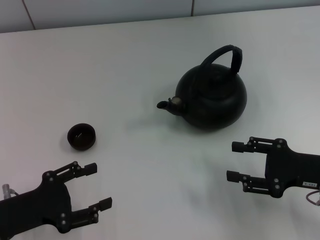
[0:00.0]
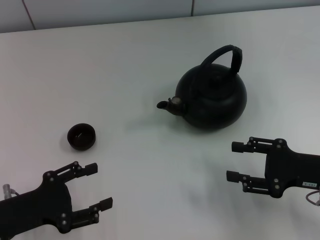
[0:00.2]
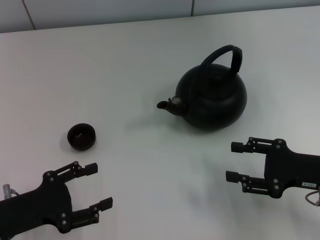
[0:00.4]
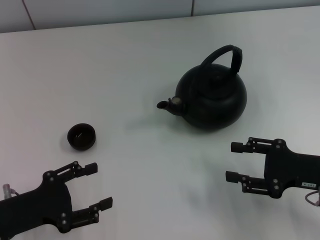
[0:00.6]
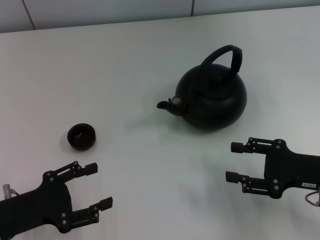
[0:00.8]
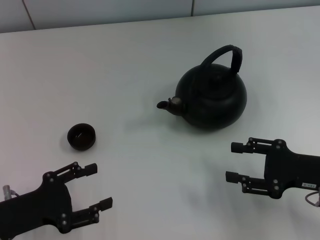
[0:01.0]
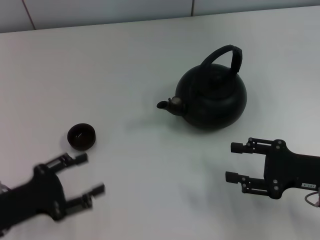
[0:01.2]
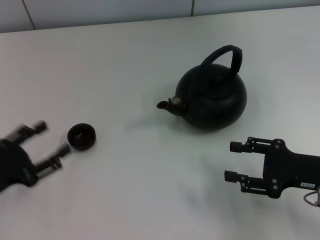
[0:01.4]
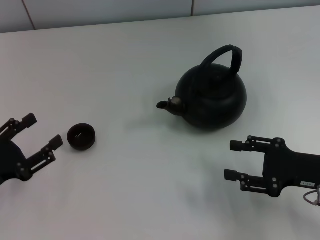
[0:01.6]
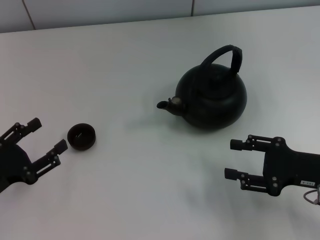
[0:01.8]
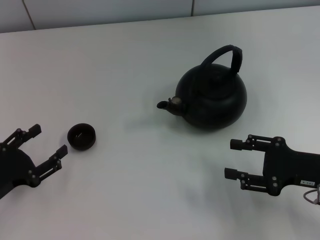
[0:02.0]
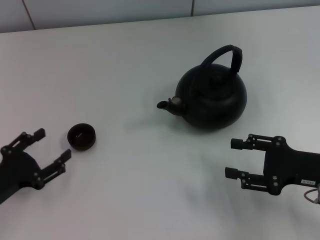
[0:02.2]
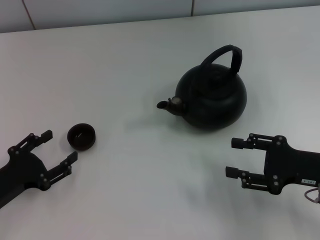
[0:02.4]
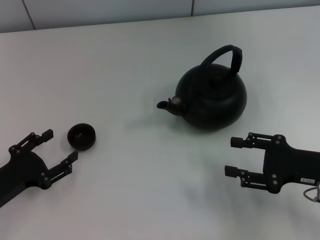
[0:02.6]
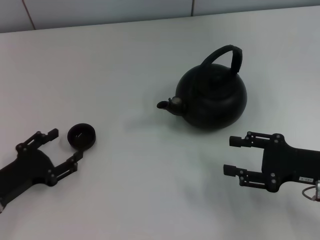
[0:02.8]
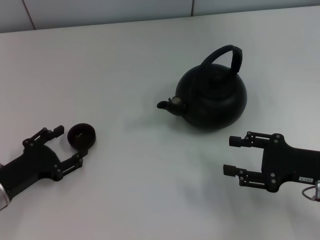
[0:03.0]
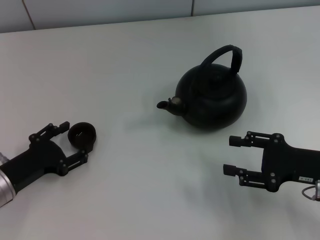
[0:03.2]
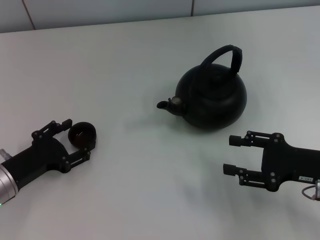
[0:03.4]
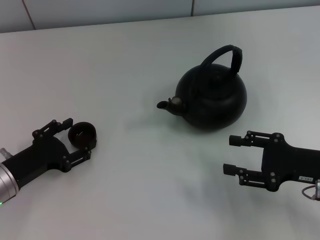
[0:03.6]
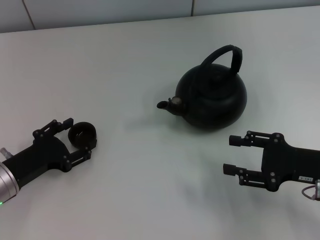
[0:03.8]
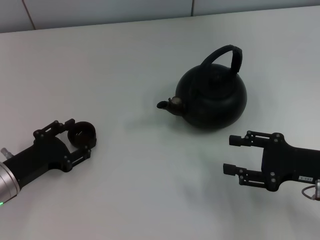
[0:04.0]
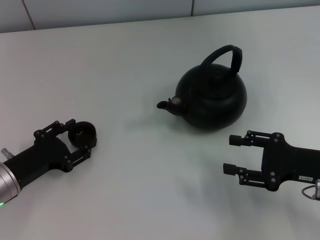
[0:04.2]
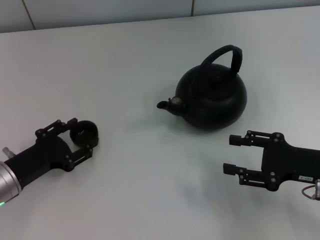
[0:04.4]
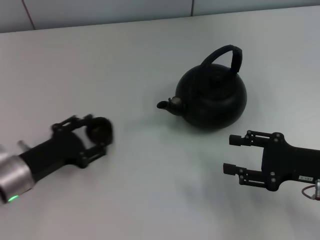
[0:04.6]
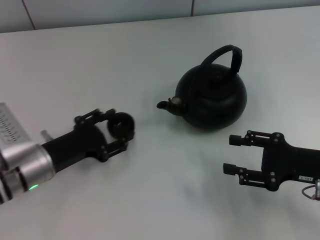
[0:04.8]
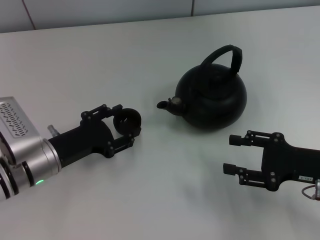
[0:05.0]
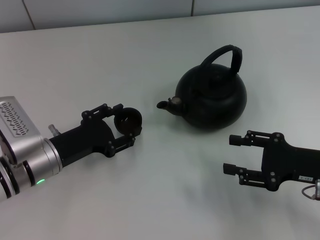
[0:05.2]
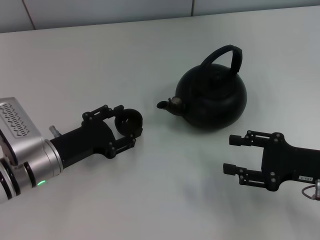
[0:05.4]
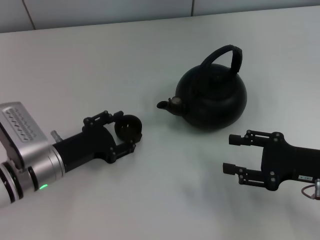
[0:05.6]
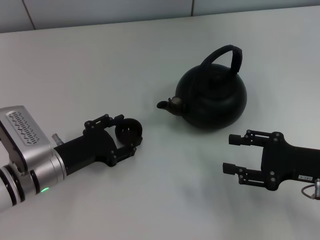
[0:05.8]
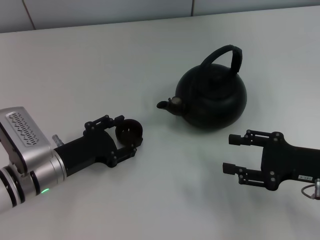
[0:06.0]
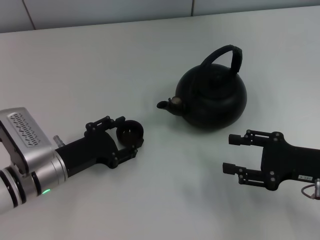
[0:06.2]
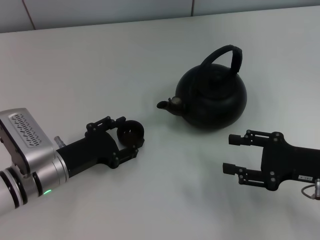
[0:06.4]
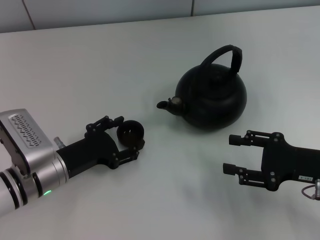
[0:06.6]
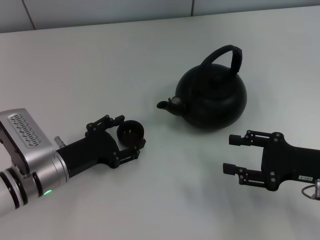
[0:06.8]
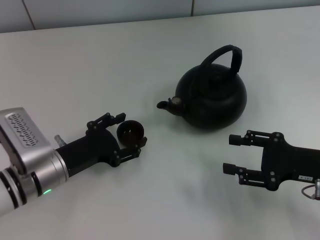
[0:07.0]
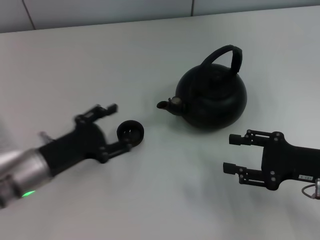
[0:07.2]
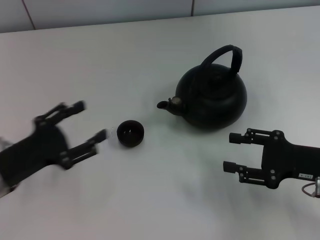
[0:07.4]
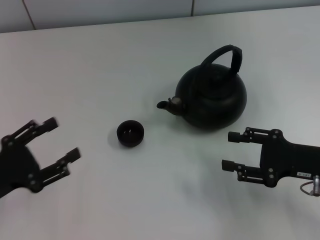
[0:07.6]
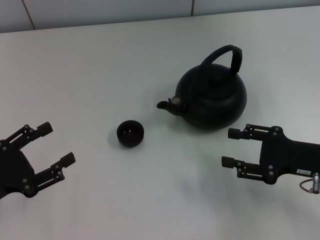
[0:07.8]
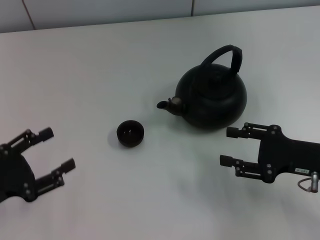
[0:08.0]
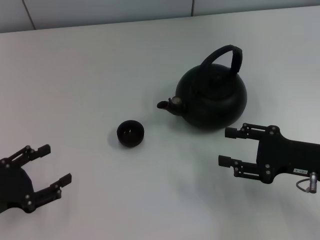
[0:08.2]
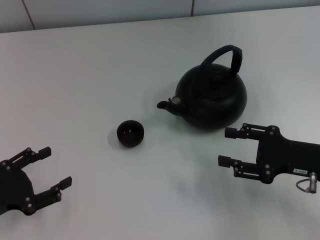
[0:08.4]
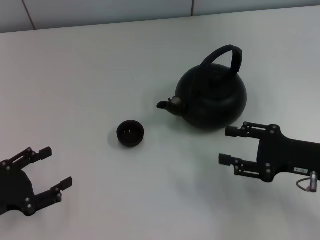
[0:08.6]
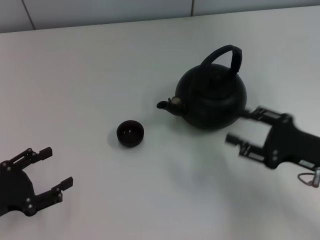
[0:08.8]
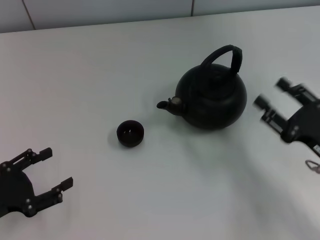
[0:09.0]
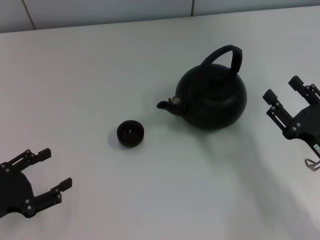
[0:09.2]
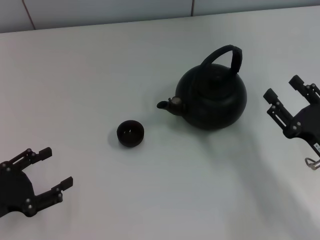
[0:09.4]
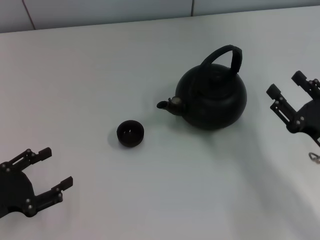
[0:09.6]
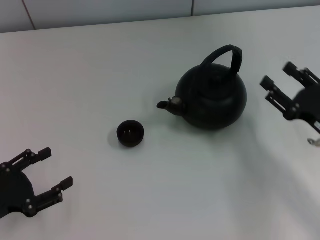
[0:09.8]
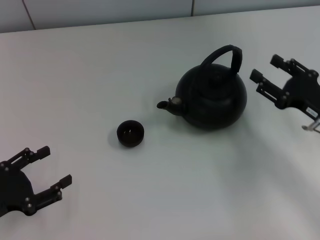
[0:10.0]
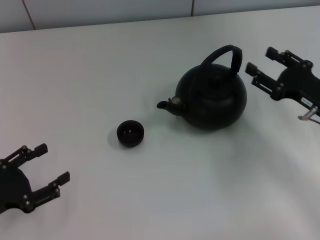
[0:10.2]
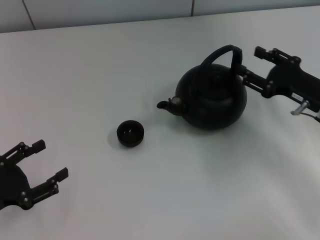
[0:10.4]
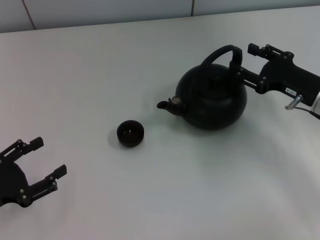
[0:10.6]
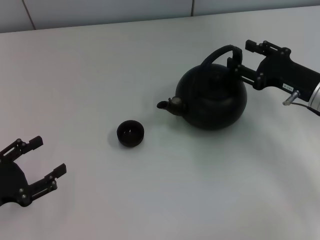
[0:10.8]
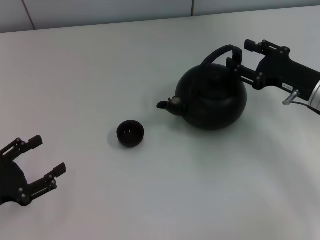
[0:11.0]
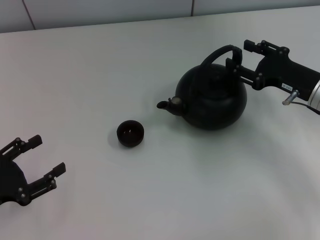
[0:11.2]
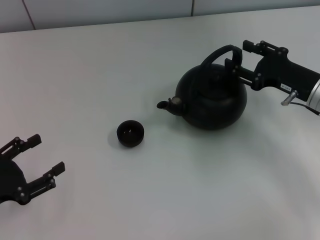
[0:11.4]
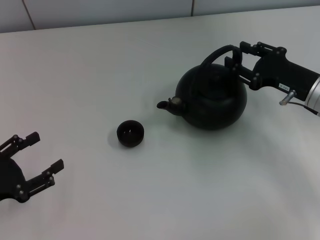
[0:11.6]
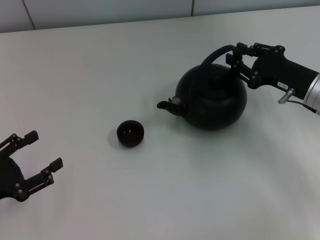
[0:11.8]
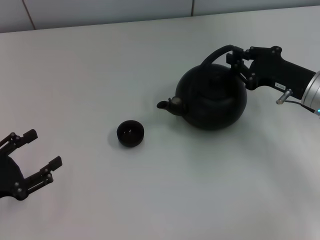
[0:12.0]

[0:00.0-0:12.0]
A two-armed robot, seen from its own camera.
Task of the whole recording: Grasp the handle of the teapot with one hand and pour tea into the teacup.
Step, 0:00.0 to 0:04.4: Pick up the teacup with the left gripper.
Step, 0:04.6 to 0:06.8: Place the teacup in the center of view with the left gripper.
0:01.6 to 0:03.0: The left gripper changes place by approximately 5 cm.
0:03.0 to 0:04.4: The grippers move only a little.
0:04.4 to 0:06.0: The left gripper goes some 5 cm to the right.
0:06.0 to 0:07.6: The left gripper is displaced to the left and backward by about 10 cm.
0:09.0 to 0:10.4: The right gripper heads forward, covering about 10 cm.
0:10.4 to 0:12.0: The right gripper closes.

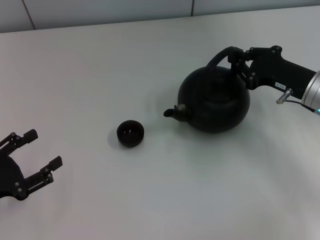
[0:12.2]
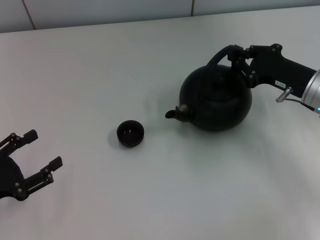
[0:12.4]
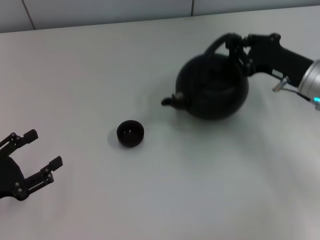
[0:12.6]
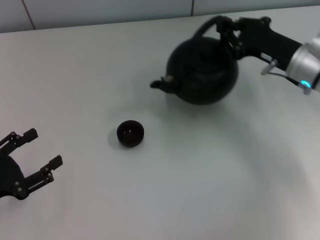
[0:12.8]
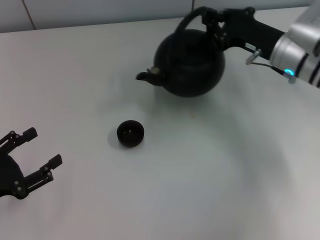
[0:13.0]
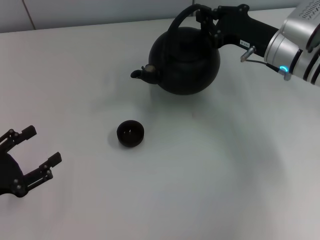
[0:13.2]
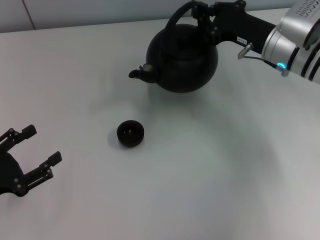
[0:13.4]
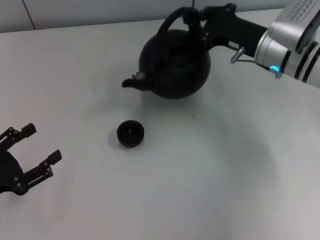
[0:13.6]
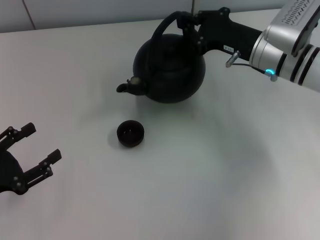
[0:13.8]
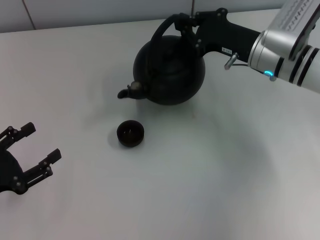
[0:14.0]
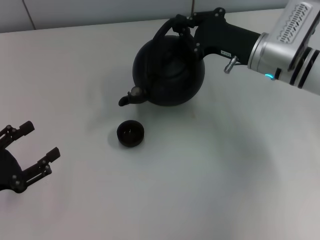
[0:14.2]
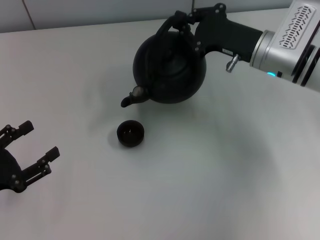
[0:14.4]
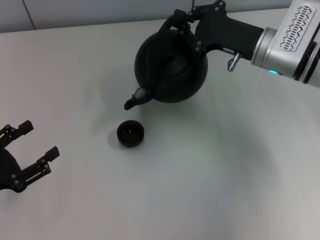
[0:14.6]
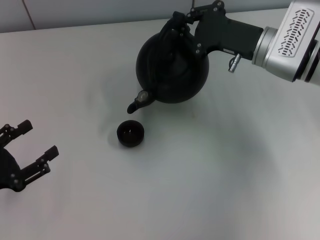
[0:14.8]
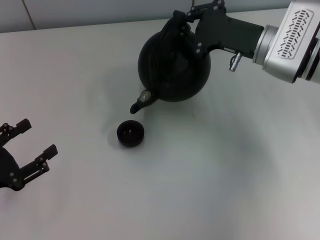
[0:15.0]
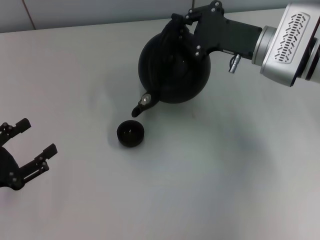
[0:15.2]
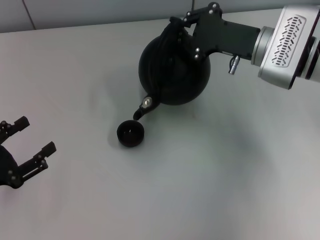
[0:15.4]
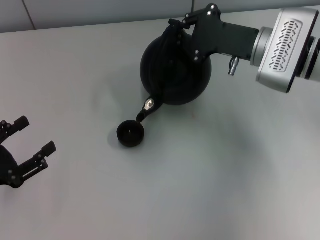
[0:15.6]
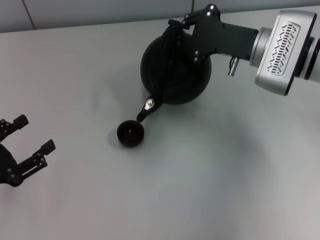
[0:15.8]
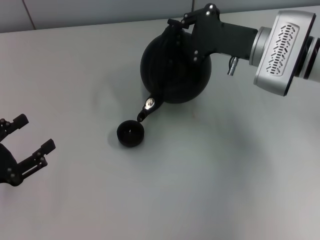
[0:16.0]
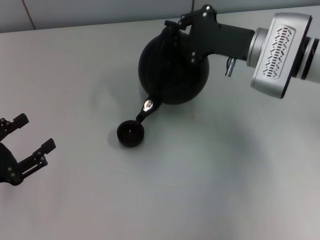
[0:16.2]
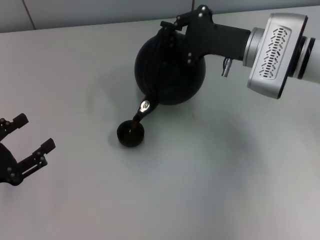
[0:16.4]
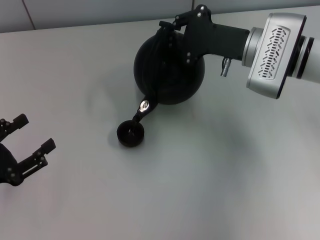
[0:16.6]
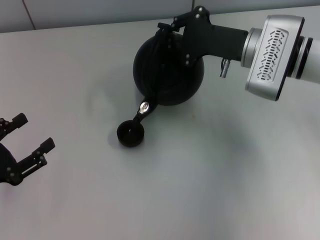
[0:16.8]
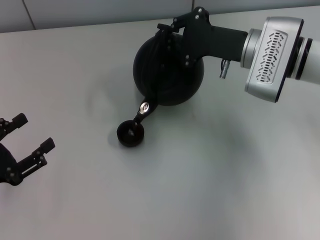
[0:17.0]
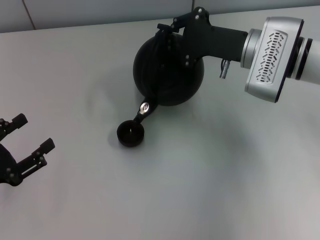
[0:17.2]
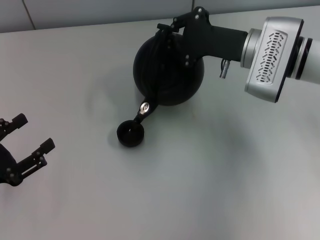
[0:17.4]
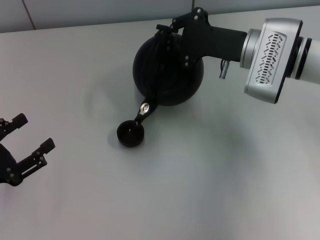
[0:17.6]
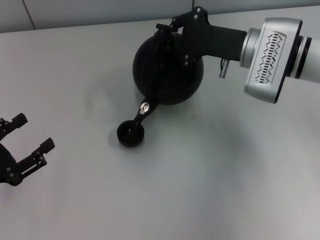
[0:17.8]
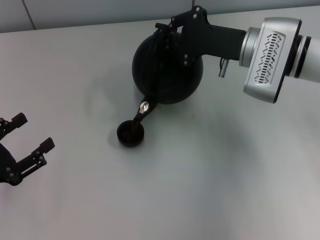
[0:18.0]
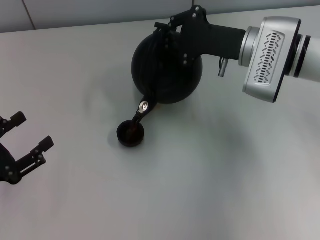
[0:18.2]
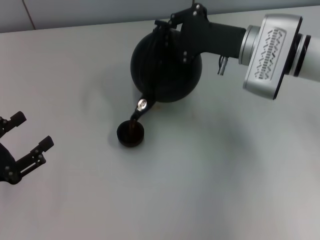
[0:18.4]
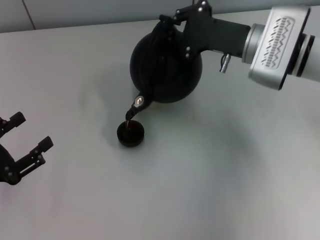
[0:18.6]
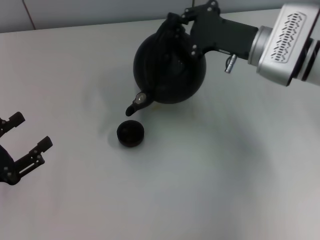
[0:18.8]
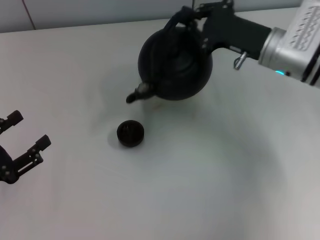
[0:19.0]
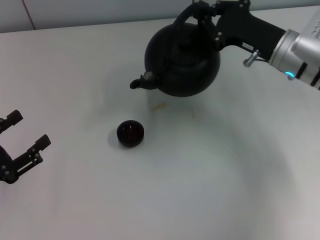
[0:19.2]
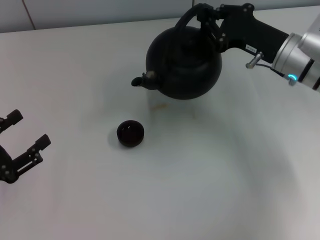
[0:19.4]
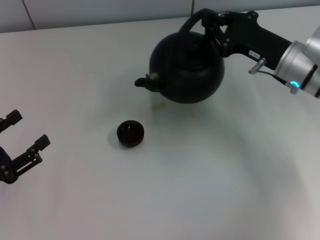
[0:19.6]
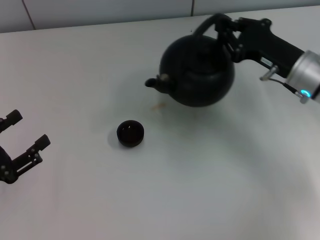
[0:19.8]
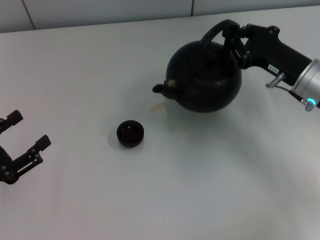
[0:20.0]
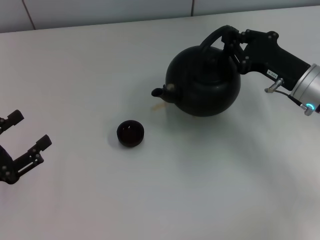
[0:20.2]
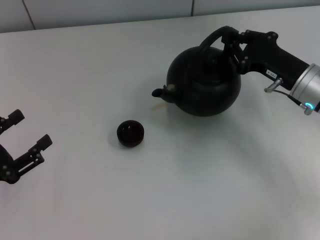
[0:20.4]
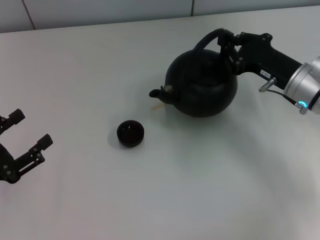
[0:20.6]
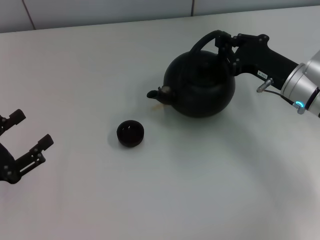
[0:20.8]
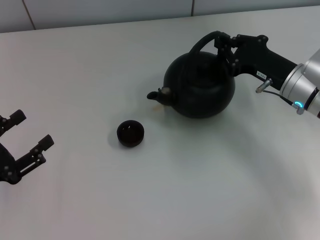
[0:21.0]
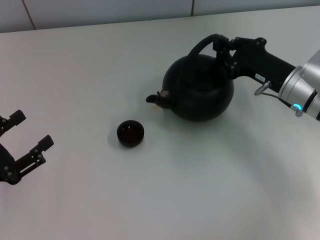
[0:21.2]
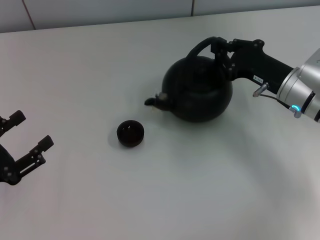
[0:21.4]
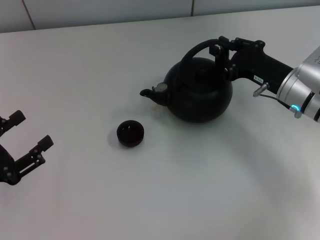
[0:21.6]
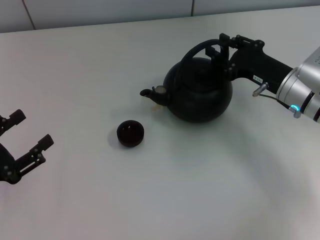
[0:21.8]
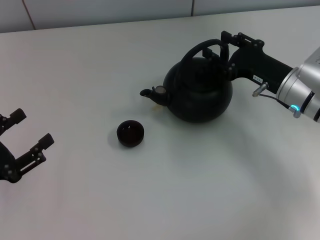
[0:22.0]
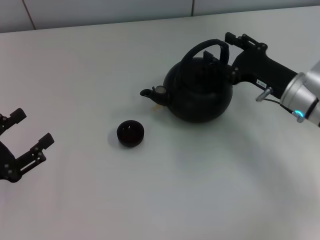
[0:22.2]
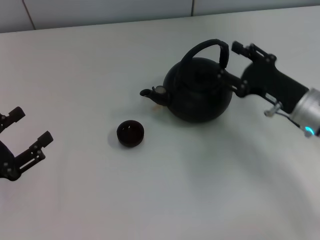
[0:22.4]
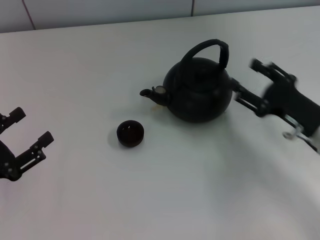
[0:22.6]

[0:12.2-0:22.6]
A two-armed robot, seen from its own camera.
Task of the whole recording: Grasp the handle of the teapot with one hand and pour tea into the teacup.
Step, 0:19.0 to 0:22.4: Put down the teapot with the right gripper.
0:12.2 to 0:13.6: The right gripper shifts some 10 cm to the left and forward.
0:15.2 to 0:16.6: The grippers stay close to where they were, moving slightly.
0:16.6 to 0:18.2: Both grippers stay put.
0:18.2 to 0:19.6: The right gripper goes approximately 5 cm to the right.
0:19.6 to 0:21.2: The grippers move only a little.
0:21.2 to 0:22.6: The right gripper moves backward, about 10 cm, and opens up.
